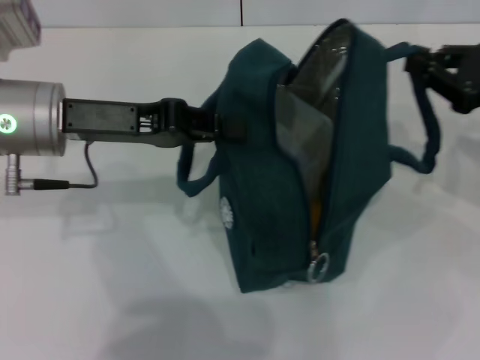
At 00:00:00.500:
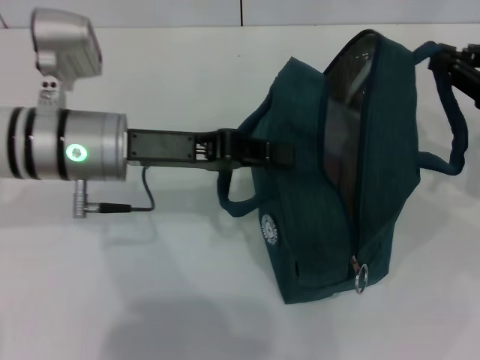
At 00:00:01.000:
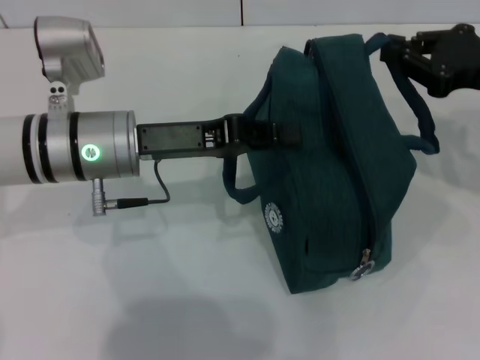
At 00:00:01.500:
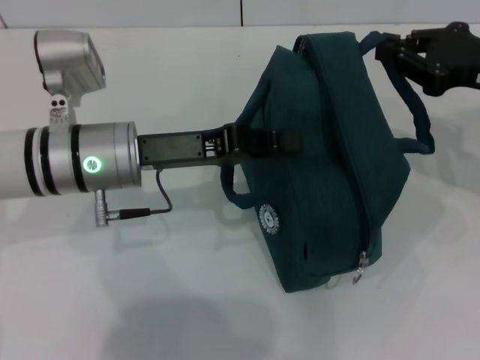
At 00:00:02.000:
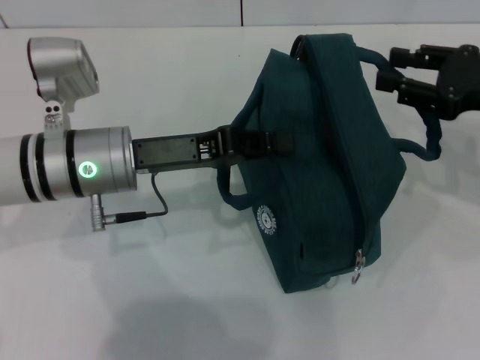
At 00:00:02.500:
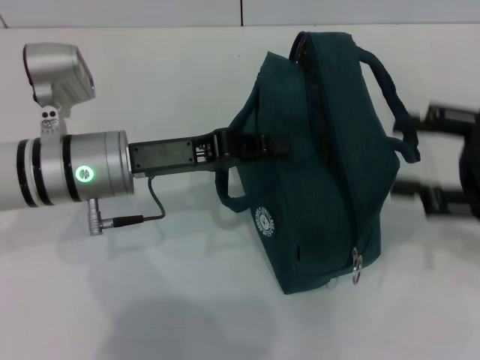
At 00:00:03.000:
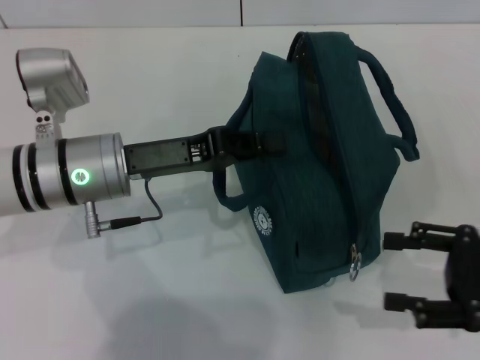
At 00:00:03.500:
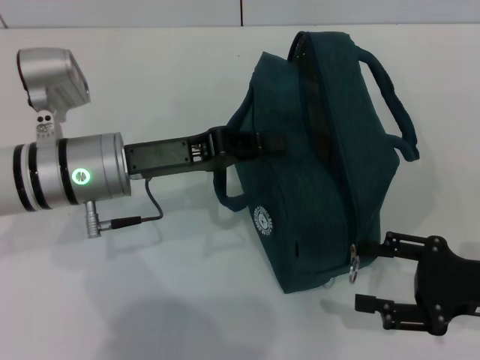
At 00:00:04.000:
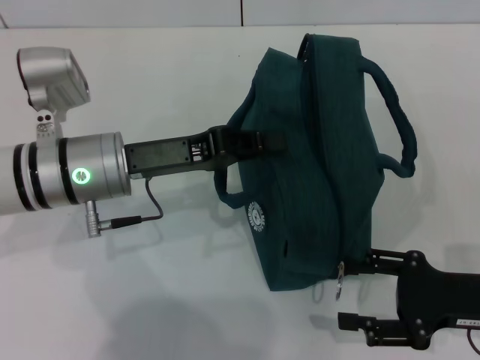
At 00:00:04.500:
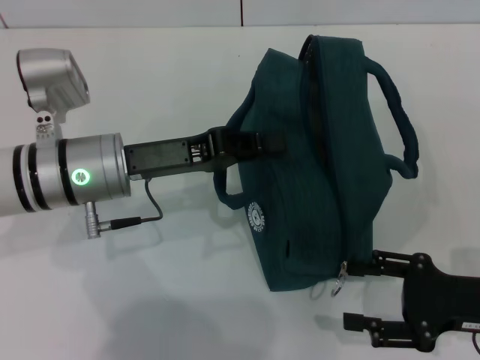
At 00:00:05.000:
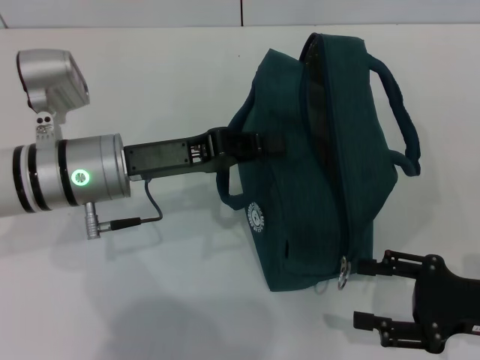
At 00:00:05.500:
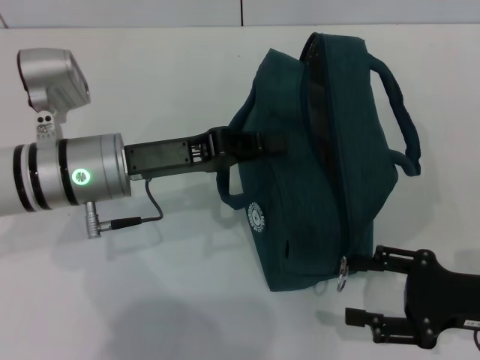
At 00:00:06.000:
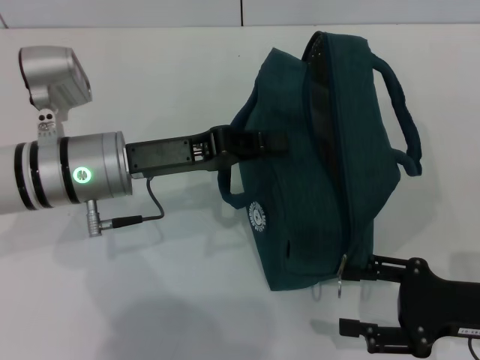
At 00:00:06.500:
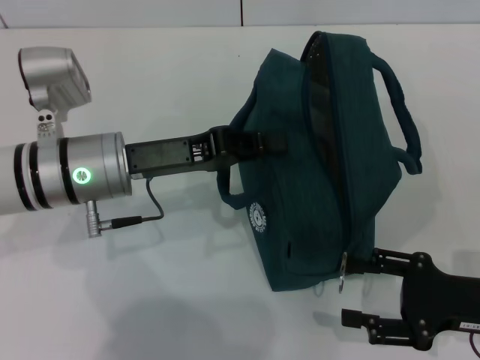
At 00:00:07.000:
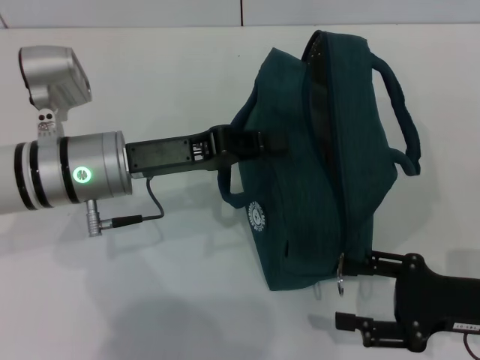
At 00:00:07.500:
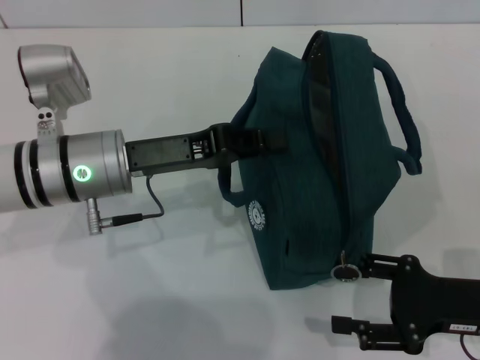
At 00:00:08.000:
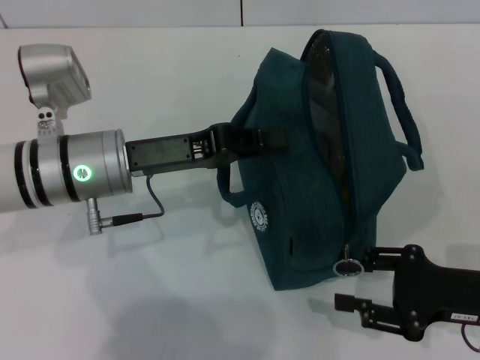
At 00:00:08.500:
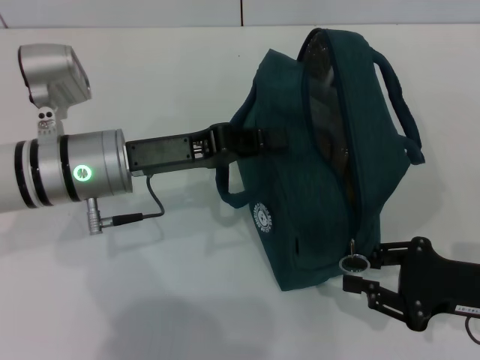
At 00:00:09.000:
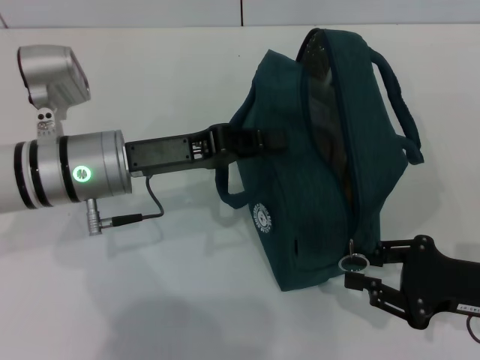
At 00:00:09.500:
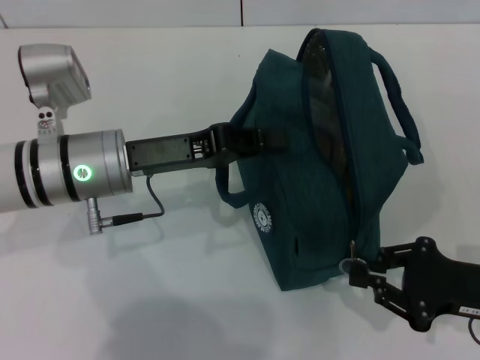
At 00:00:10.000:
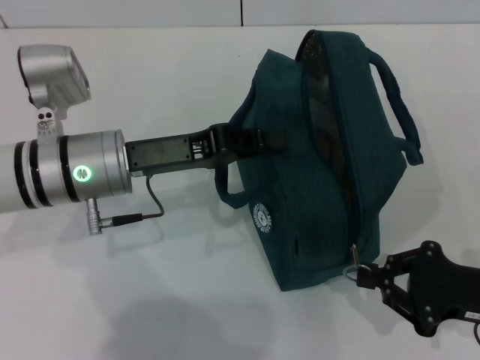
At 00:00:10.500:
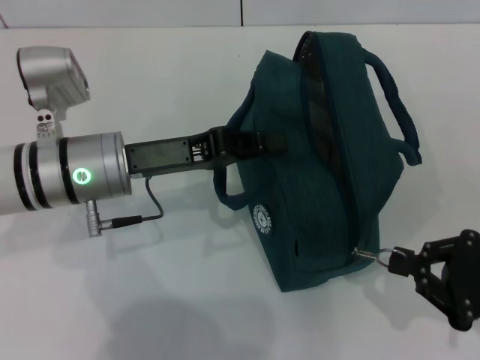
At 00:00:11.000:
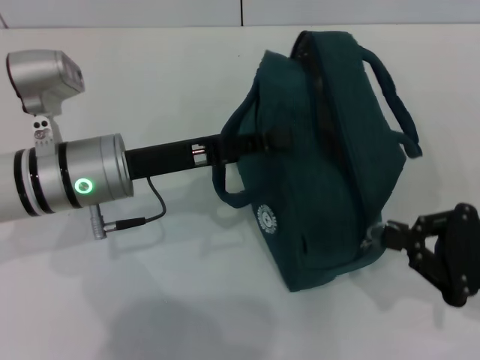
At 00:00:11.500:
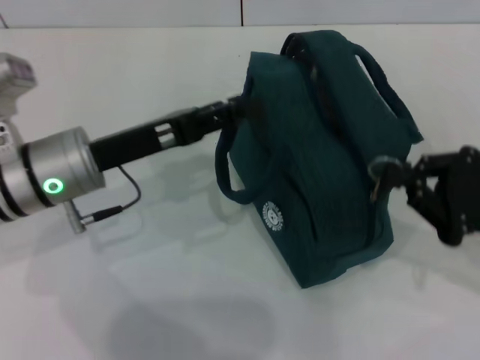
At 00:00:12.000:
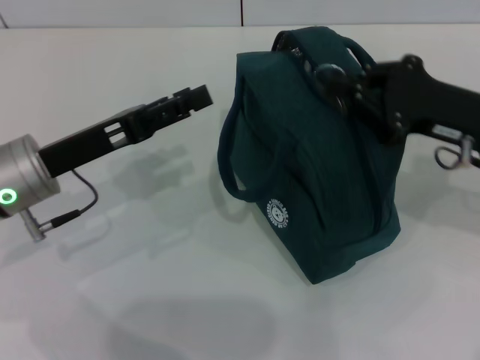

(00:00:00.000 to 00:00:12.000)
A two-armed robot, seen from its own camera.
Step, 00:00:00.000 - 00:00:02.000: Hold the lunch bag with your right hand.
00:00:00.000 - 00:00:02.000: The left gripper moves downward, about 5 cm.
00:00:02.000 - 00:00:04.000: The right gripper shifts some 15 cm backward and downward, and opens up.
00:00:04.000 - 00:00:06.000: The grippers move only a little.
00:00:06.000 - 00:00:08.000: The two grippers keep their place.
00:00:08.000 - 00:00:10.000: The right gripper closes its fingers.
00:00:10.000 - 00:00:12.000: The left gripper shifts about 5 cm to the left, and opens its fingers; the right gripper goes roughly 15 cm forward and upward.

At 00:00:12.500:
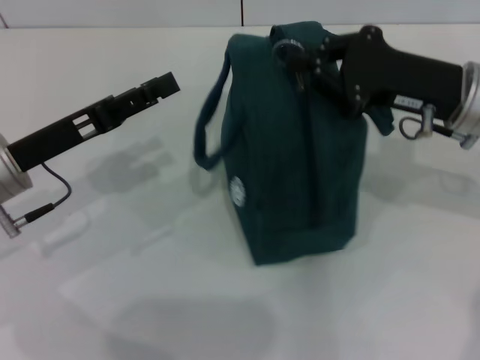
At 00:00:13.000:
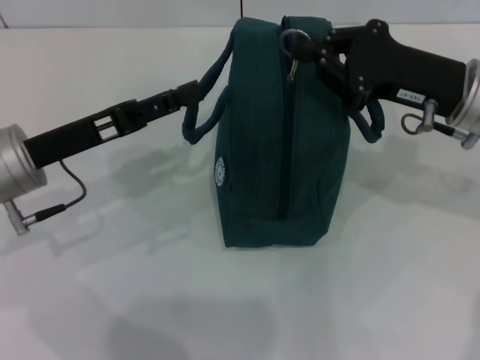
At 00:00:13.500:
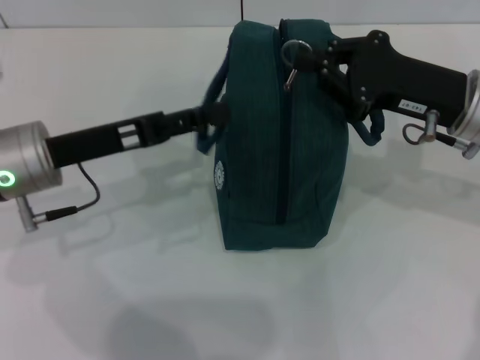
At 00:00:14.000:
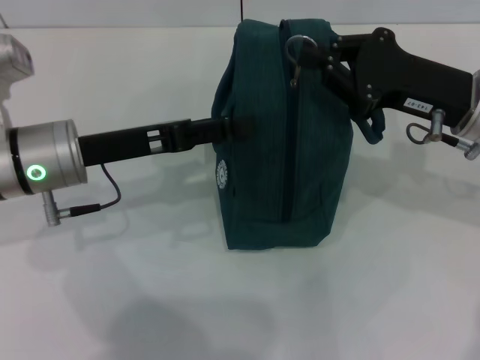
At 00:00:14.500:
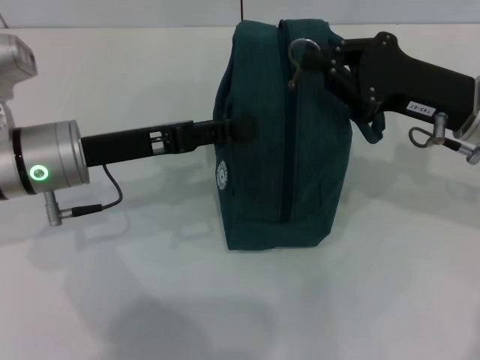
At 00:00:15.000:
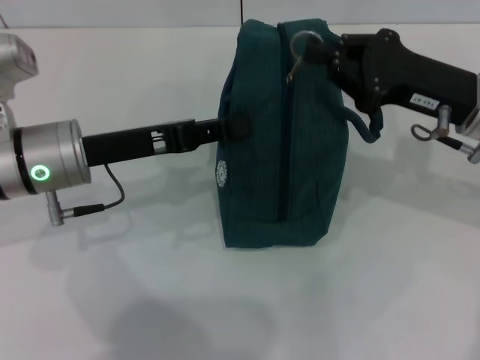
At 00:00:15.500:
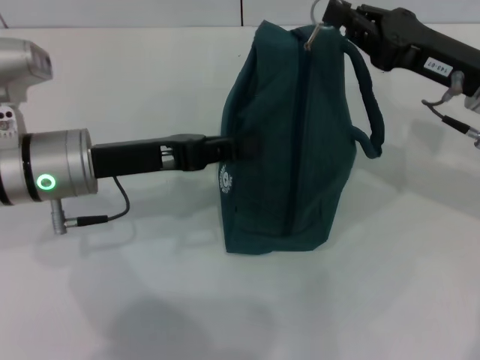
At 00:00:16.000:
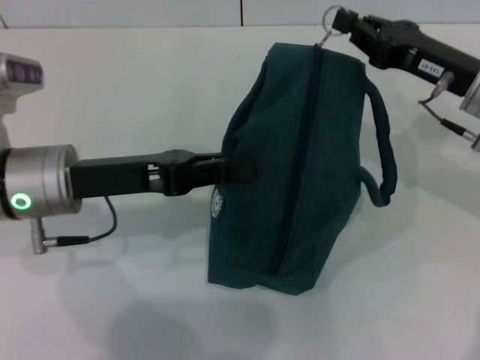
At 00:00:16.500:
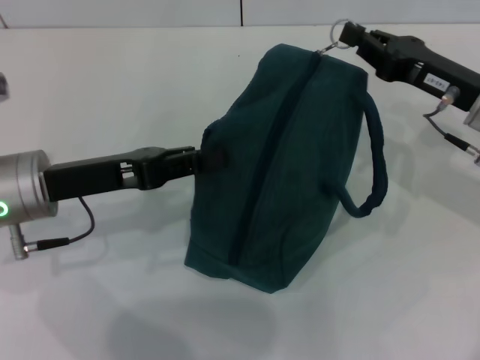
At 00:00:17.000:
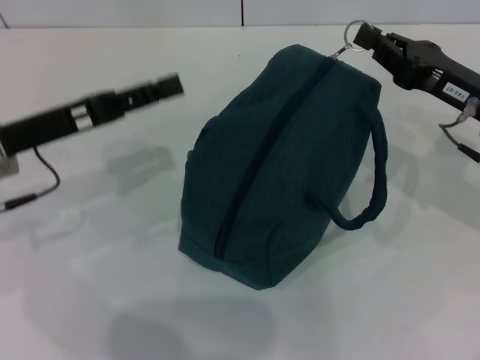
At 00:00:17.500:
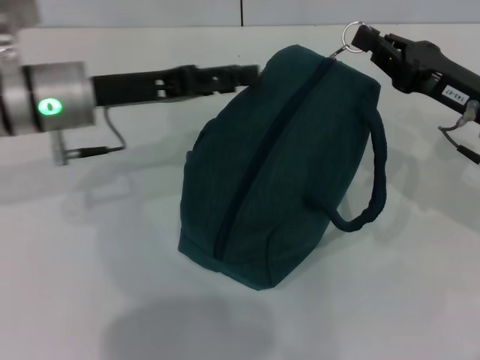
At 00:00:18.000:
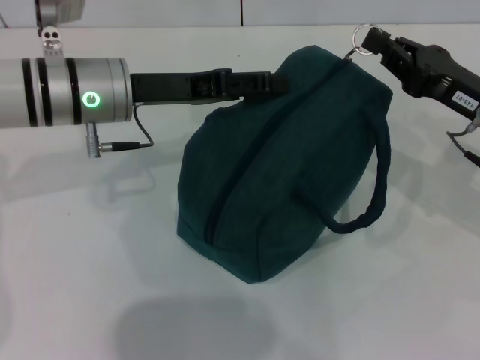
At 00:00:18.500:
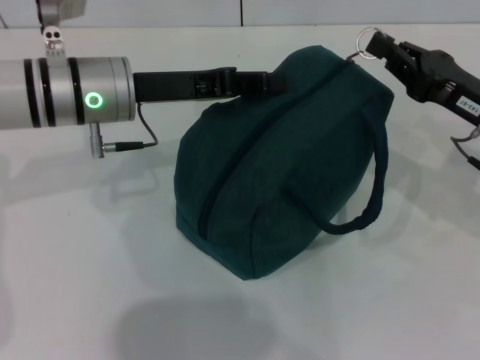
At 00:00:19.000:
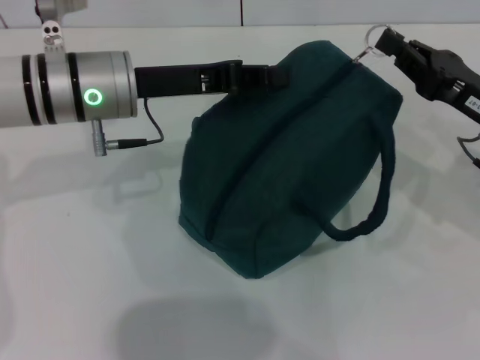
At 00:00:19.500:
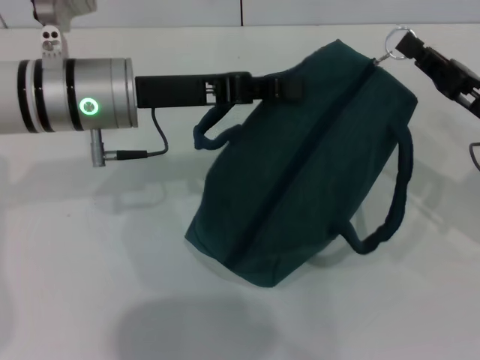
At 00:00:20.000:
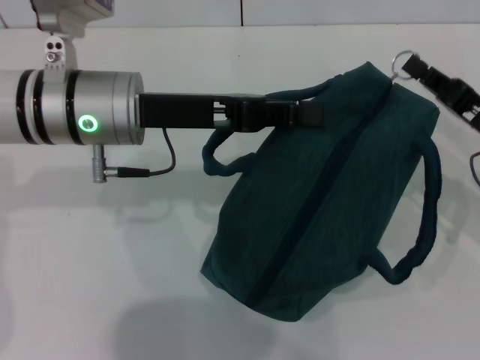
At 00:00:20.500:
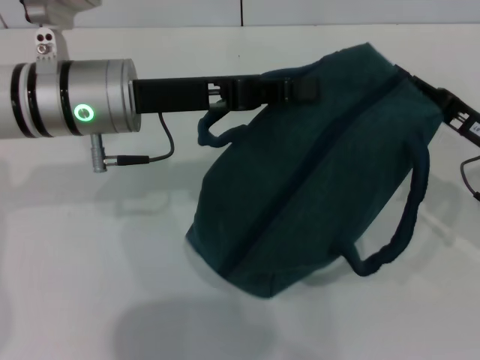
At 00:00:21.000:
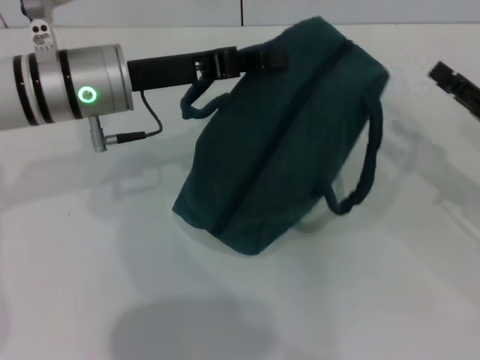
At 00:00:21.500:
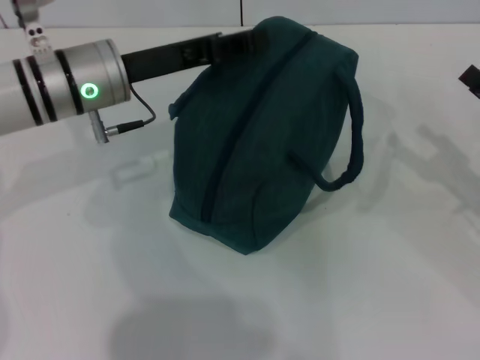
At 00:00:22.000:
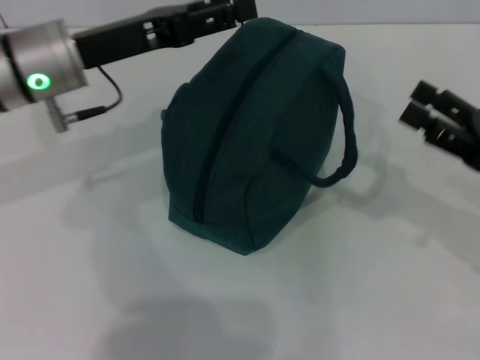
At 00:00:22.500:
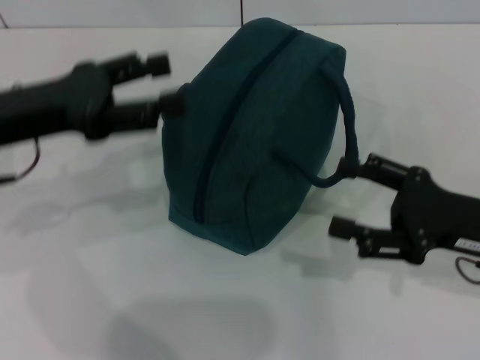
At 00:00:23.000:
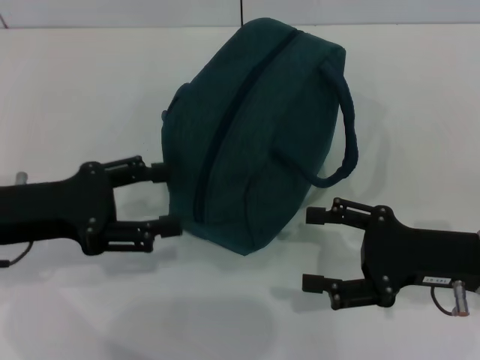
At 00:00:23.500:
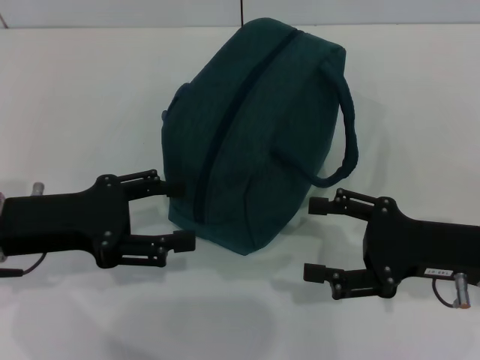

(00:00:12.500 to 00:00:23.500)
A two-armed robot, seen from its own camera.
Step, 00:00:12.500 - 00:00:20.500: Zip up the lunch bag with your right hand.
Step, 00:00:21.000 - 00:00:21.500: Hold the lunch bag with your left hand.
00:00:12.500 - 00:00:14.500: The left gripper goes about 5 cm to the right.
00:00:14.500 - 00:00:16.000: The left gripper closes.
00:00:16.000 - 00:00:18.000: The left gripper is displaced forward by some 10 cm, and opens up.
00:00:18.000 - 00:00:20.000: The left gripper closes up.
00:00:20.000 - 00:00:21.500: The right gripper is displaced to the right by some 5 cm, and opens.
00:00:21.500 - 00:00:23.500: The right gripper heads to the left, covering about 10 cm. Meanwhile the left gripper heads backward and to the left, covering approximately 15 cm, and opens its fingers.
